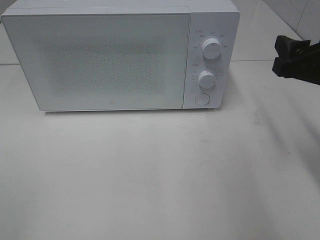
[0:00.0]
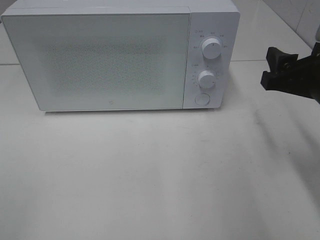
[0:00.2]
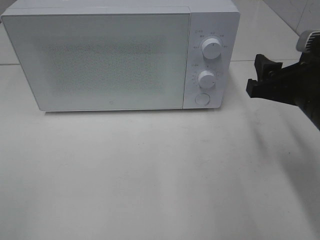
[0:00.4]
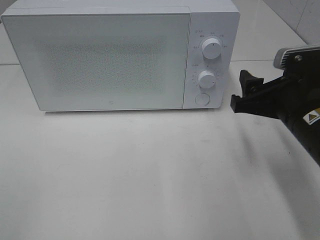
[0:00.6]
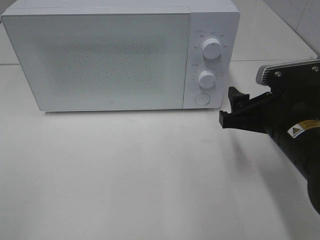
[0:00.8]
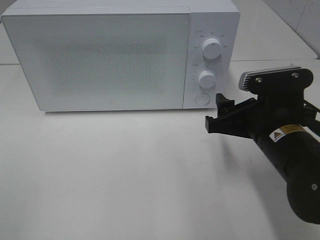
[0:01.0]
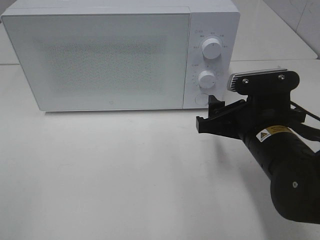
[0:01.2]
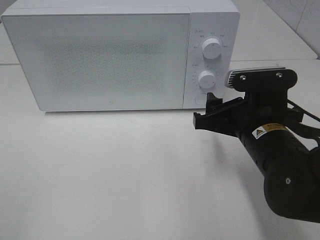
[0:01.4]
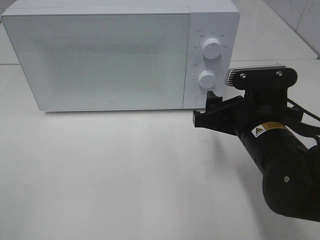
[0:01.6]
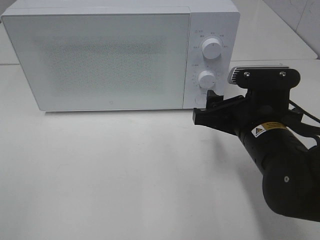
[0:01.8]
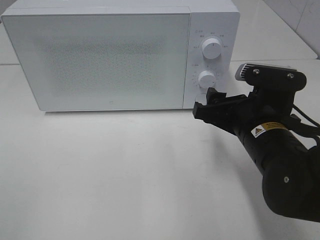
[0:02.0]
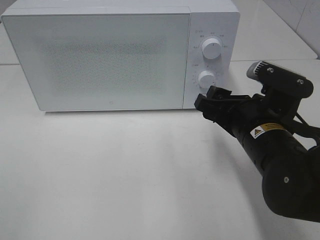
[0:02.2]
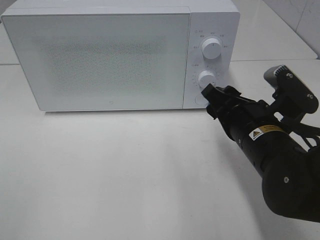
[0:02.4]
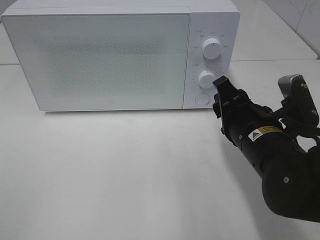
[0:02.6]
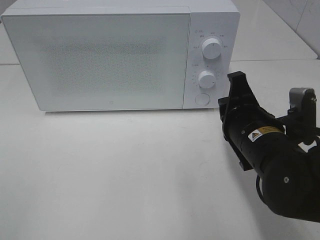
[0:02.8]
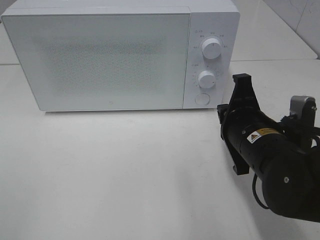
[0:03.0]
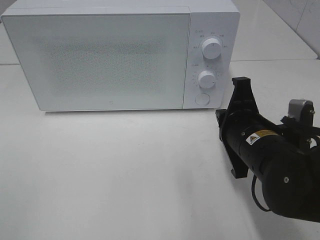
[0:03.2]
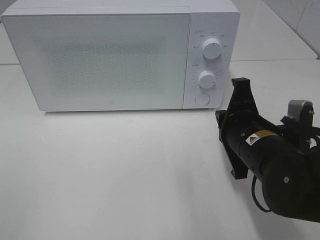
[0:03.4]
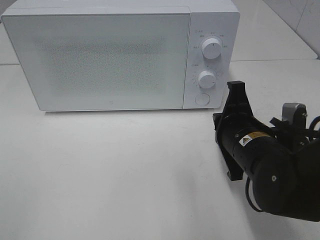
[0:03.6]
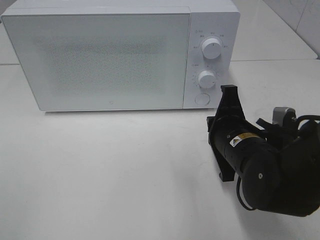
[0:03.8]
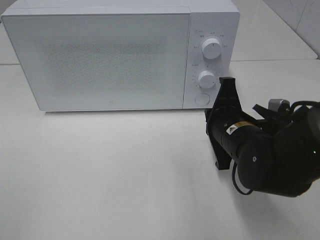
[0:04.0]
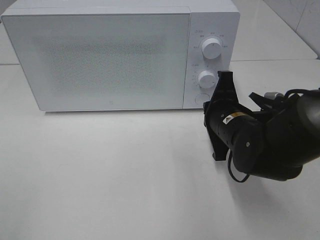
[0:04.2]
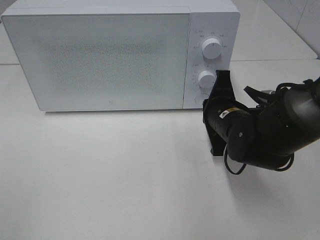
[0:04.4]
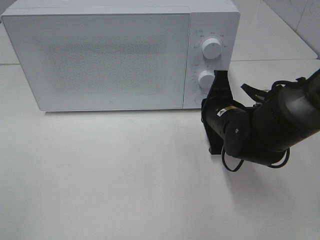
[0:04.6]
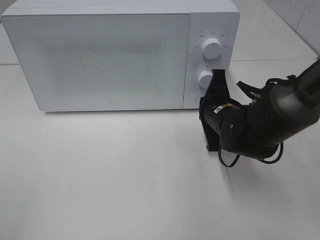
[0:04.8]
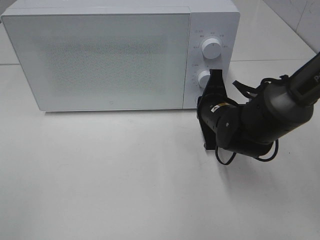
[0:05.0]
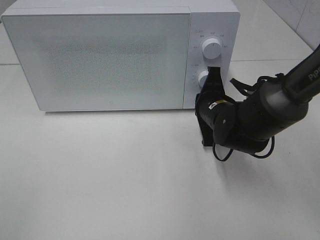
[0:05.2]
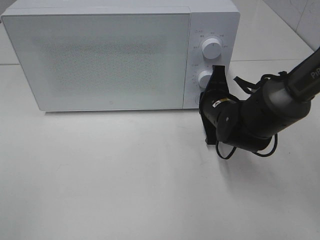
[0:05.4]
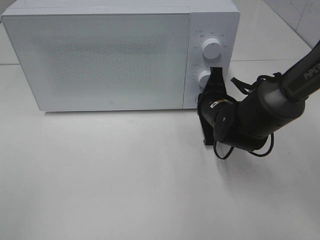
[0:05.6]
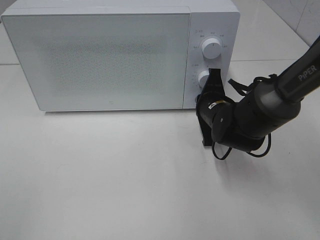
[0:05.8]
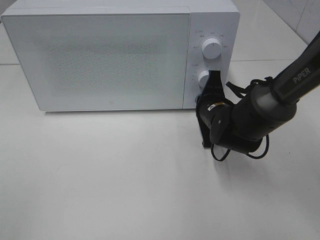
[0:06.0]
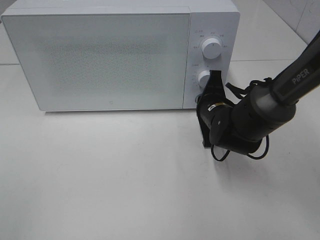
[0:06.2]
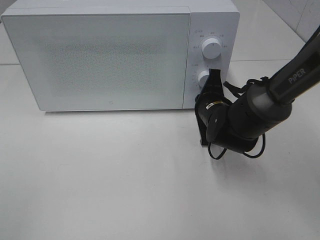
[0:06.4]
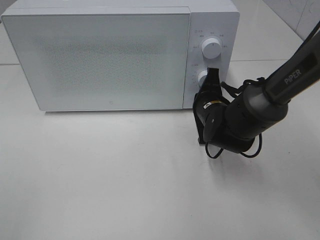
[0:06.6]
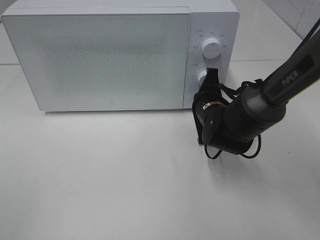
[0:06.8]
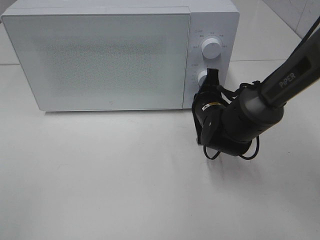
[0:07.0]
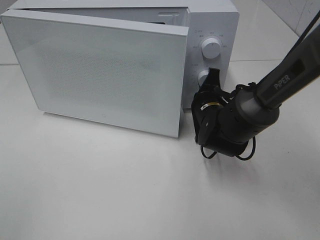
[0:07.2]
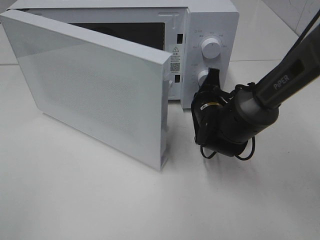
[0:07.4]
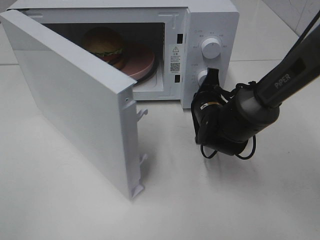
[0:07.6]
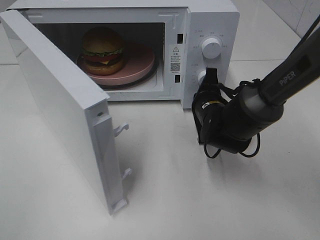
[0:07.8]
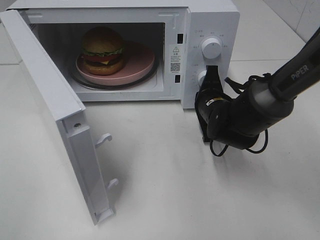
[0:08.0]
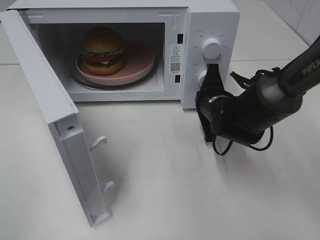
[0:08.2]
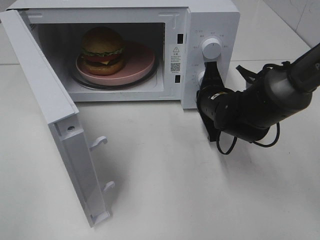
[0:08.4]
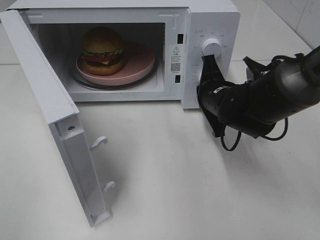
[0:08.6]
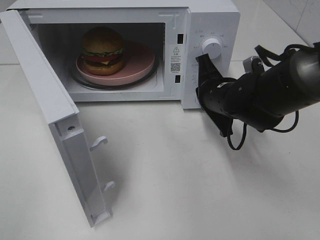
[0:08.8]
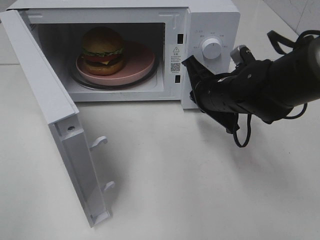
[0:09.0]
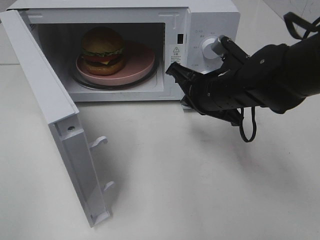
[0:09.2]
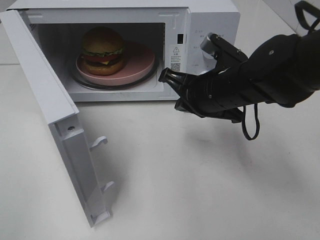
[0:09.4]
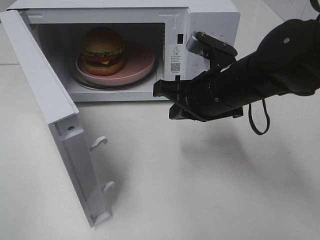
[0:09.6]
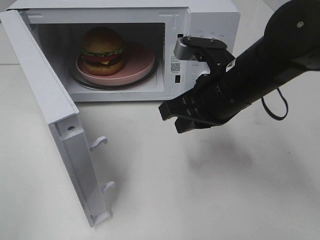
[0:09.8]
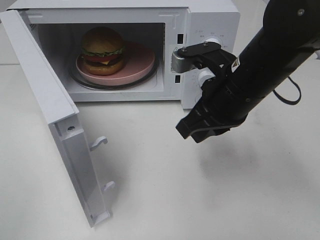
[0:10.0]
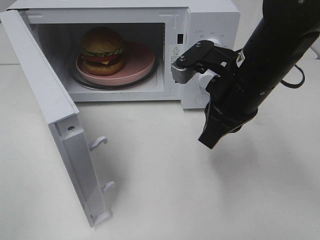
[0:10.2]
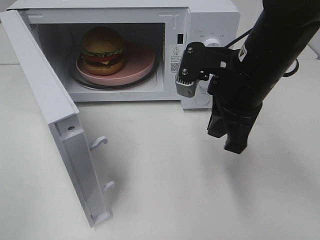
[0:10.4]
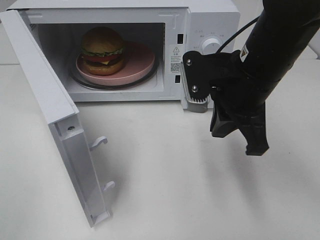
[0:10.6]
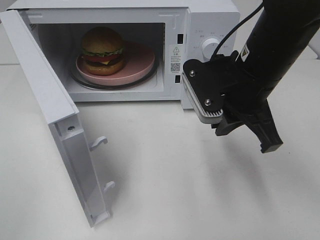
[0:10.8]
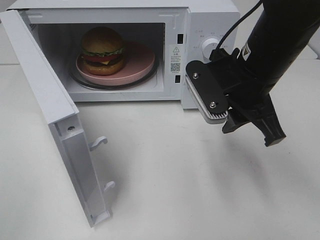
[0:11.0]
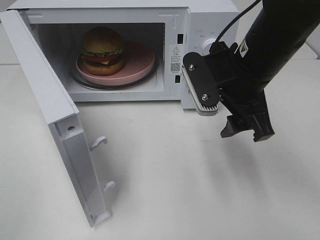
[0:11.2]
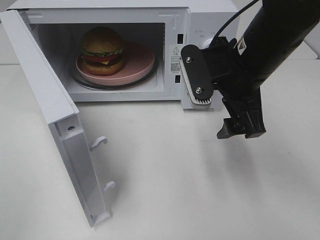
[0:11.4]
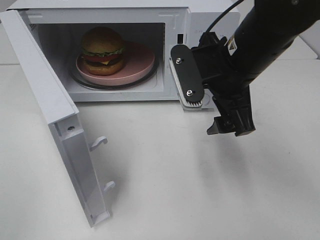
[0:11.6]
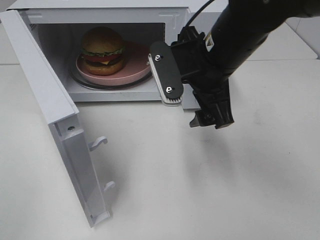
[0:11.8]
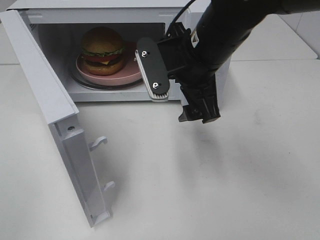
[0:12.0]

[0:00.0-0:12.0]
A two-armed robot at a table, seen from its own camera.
Task of the whole recording: Heat the burger.
Step, 0:00.0 to 0:09.2: Right hand: press the switch.
0:00.0 to 0:01.6: The right gripper goes some 15 cm to the left and downward.
0:01.6 to 0:03.0: The right gripper closes its fingers.
0:03.0 to 0:04.4: The right gripper heads forward, covering approximately 10 cm.
0:04.4 to 0:06.0: The right gripper changes place by roughly 5 cm.
0:07.6 to 0:09.0: The right gripper goes about 5 cm upward.
0:09.0 to 0:10.4: The right gripper is displaced upward and backward by about 10 cm.
0:10.4 to 0:12.0: The right gripper moves to the left, some 5 cm, and opens.

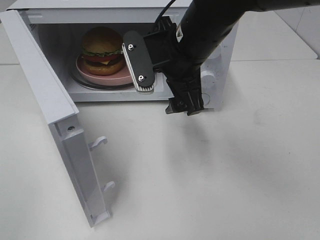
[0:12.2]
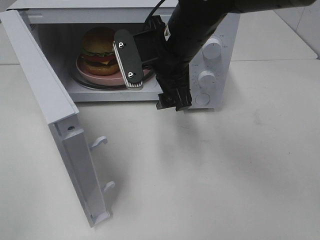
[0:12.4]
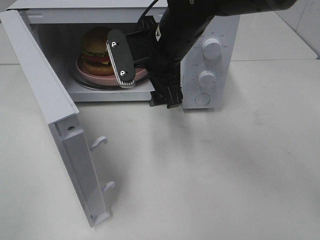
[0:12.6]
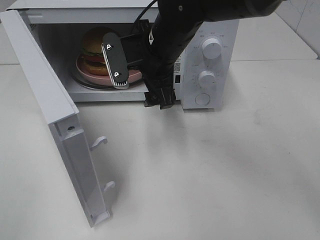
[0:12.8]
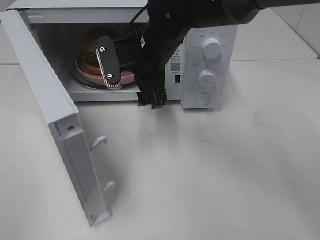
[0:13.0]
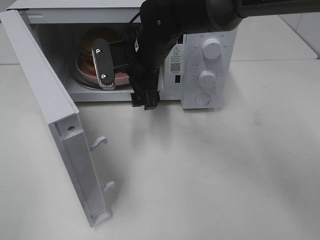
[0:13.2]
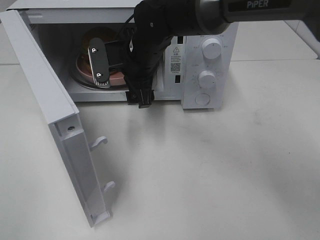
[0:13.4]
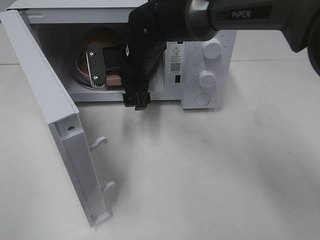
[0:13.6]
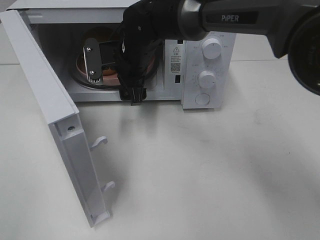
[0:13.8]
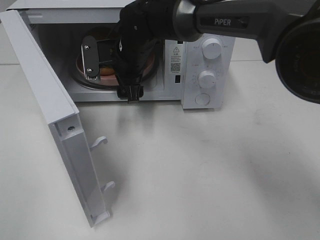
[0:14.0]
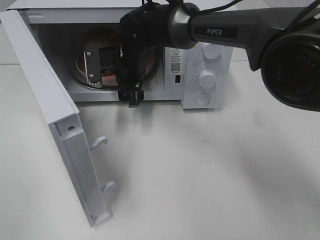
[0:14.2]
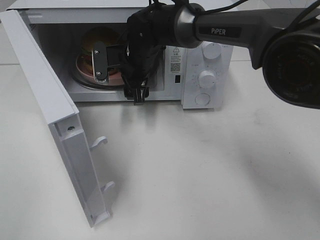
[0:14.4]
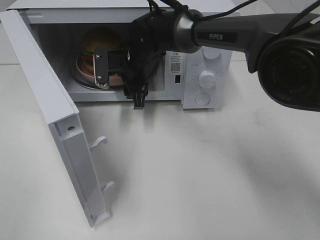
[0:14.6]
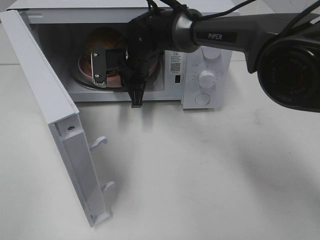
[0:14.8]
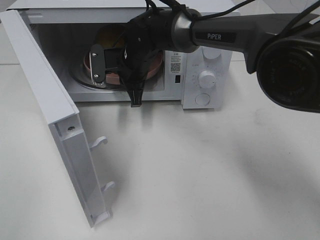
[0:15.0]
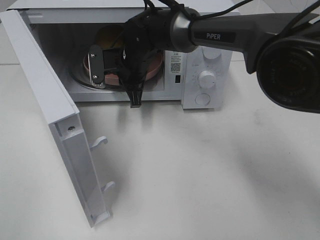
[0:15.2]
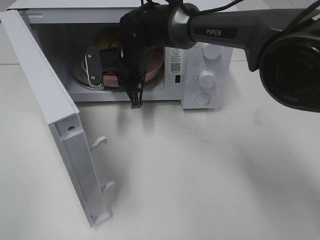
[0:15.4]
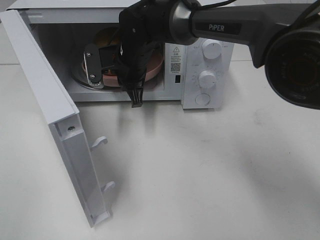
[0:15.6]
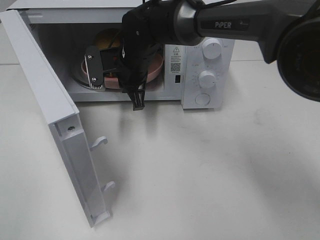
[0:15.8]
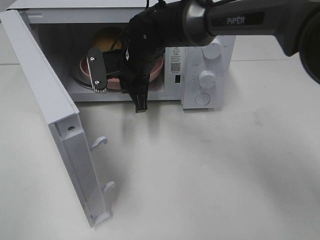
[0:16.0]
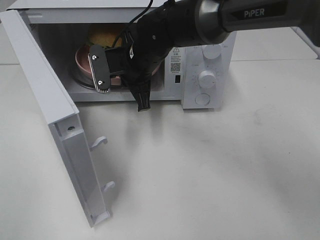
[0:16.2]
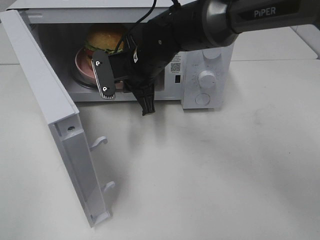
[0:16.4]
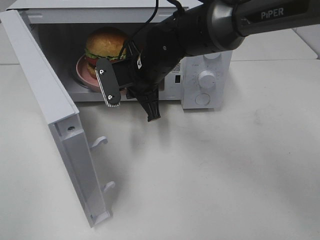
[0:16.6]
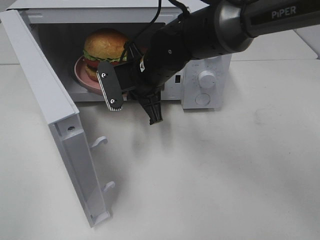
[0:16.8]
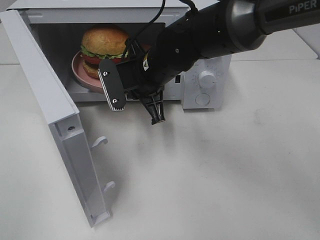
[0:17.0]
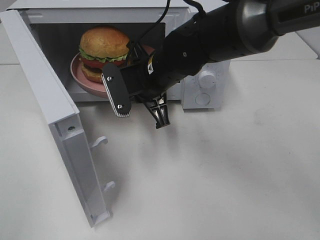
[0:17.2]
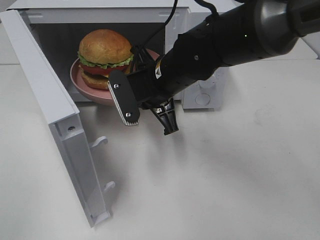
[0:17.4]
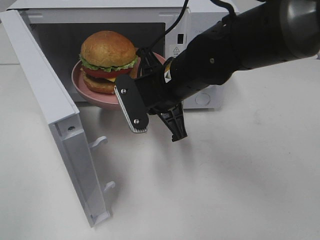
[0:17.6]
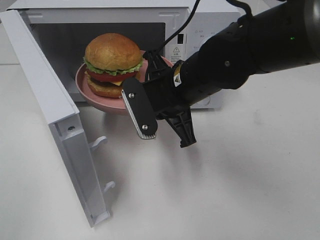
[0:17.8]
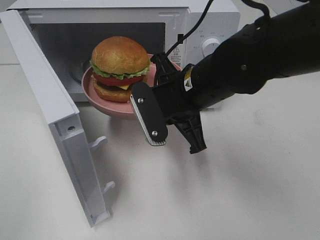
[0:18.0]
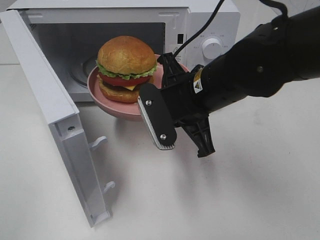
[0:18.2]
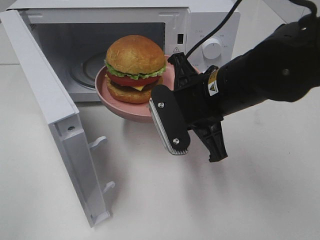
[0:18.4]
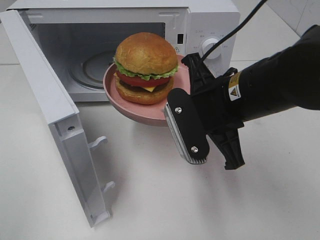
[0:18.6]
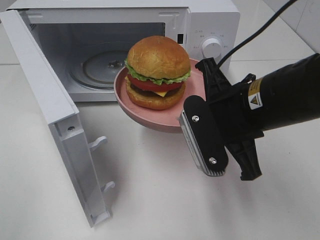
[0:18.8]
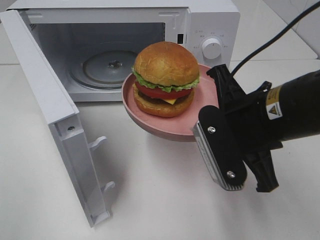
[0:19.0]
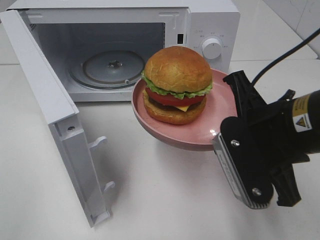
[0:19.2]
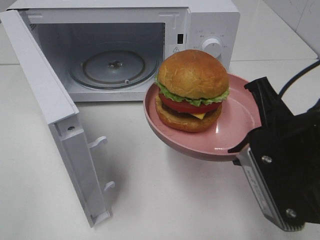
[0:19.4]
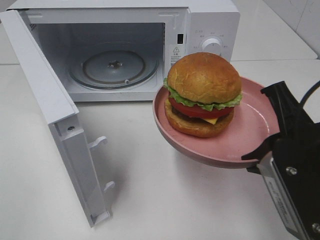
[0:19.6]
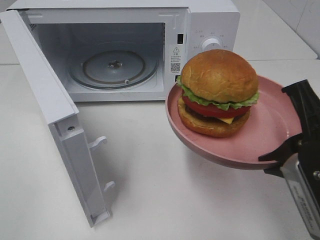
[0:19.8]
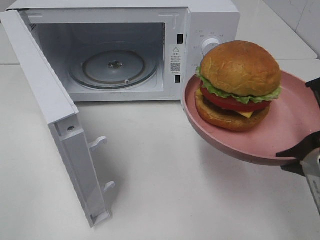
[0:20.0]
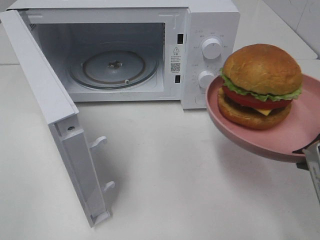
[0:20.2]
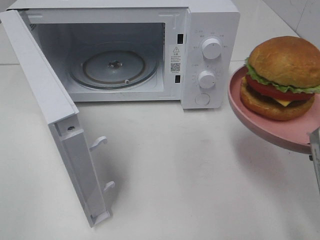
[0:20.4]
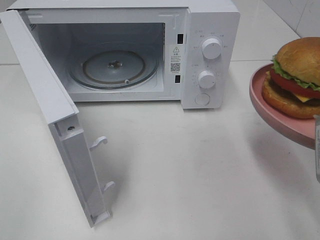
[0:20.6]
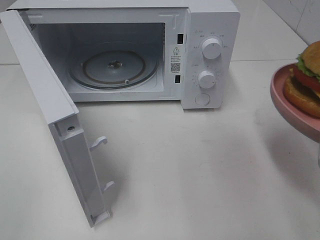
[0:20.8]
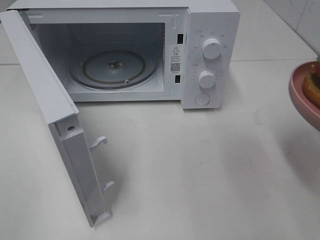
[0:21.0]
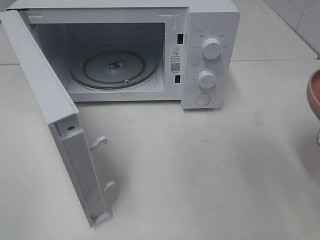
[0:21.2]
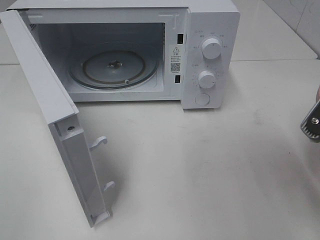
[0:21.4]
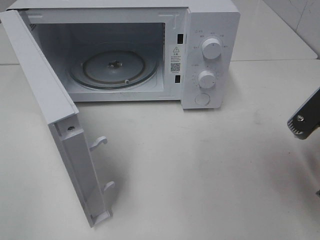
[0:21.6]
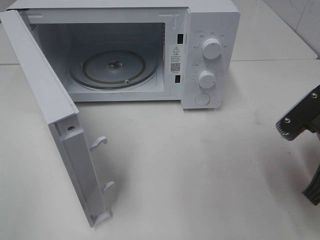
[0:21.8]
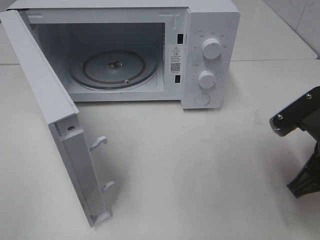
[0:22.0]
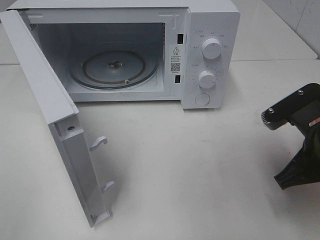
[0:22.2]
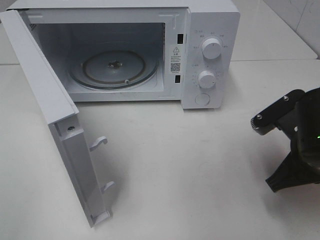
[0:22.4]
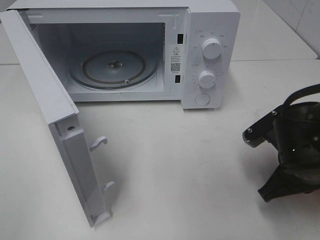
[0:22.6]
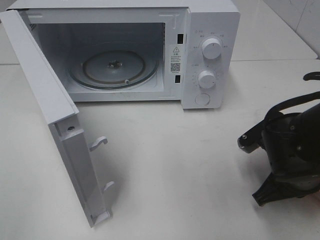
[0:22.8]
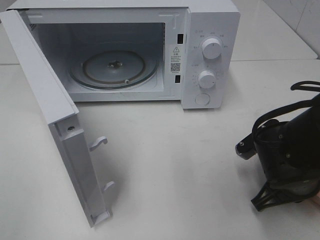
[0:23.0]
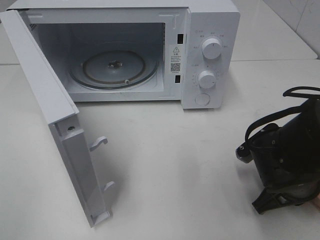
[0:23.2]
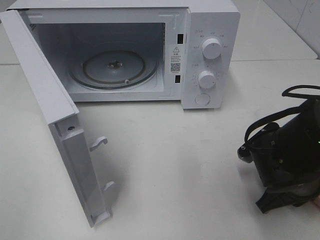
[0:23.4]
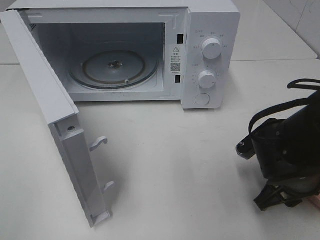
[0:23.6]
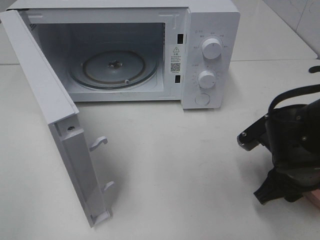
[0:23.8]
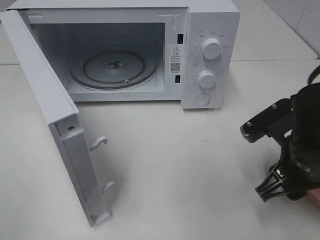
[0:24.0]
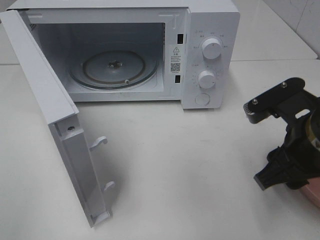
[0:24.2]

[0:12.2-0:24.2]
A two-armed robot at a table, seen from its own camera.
Task of the whole recording: Heat the burger.
Step, 0:12.2 to 0:15.8: Right hand: grab the plate with the hamburger.
0:12.2 to 0:13.8: The right gripper heads forward, to the left and downward, covering about 15 cm.
0:13.8 to 0:15.2: The right gripper closes up.
0:15.2 to 0:16.6: The right gripper travels backward by approximately 5 cm.
0:16.6 to 0:18.2: The right gripper shifts some 15 cm backward and to the right.
0:18.2 to 0:19.8: The right gripper goes about 20 cm backward and to the right.
0:19.8 to 0:21.2: The right gripper moves to the right, approximately 5 cm.
0:21.2 to 0:22.6: The right gripper goes approximately 15 cm downward and forward.
0:22.6 to 0:24.2: The right gripper moves upward, roughly 5 cm, and opens up.
